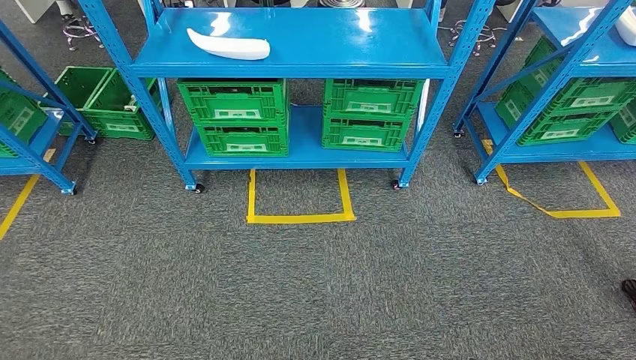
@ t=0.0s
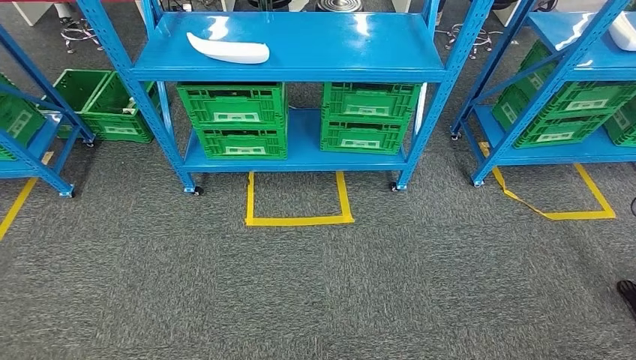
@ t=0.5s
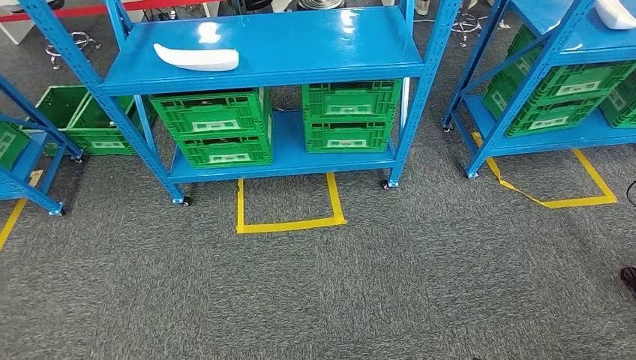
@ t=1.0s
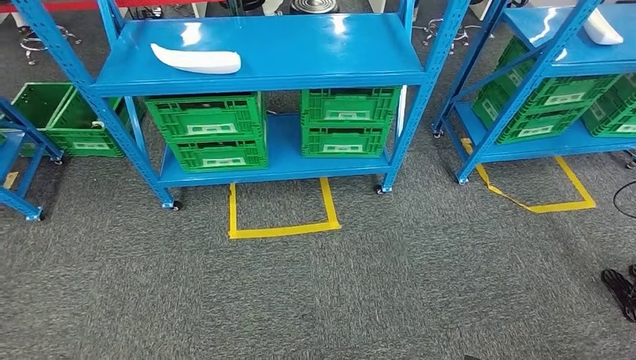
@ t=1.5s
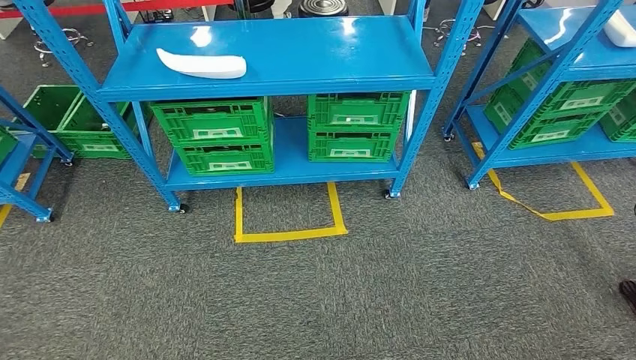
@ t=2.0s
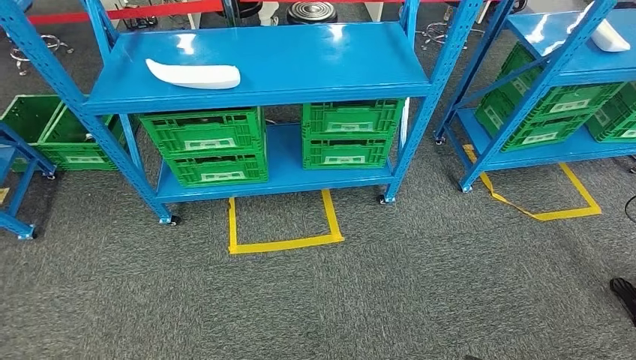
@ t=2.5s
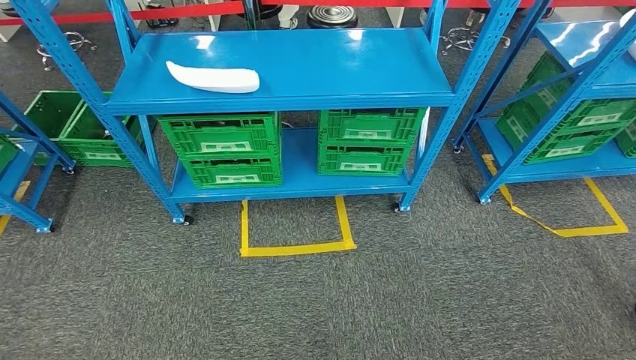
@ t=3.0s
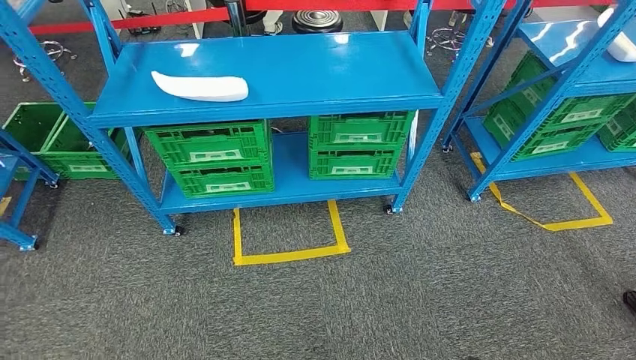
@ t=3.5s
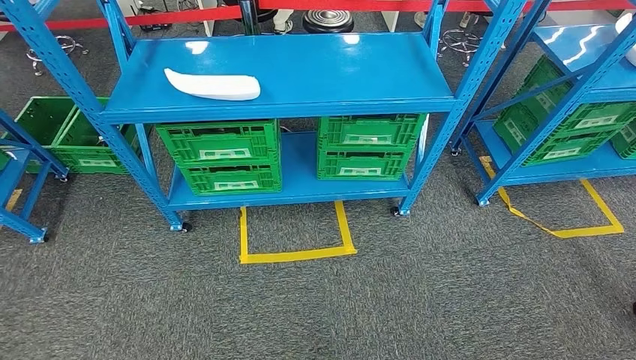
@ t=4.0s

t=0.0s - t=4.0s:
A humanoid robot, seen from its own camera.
Step, t=0.0s - t=4.0s: Move to the initial position of the workbench.
